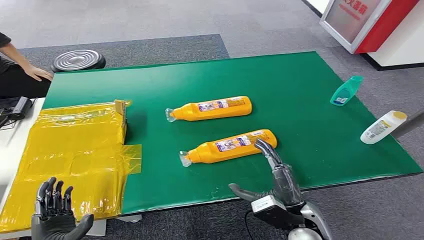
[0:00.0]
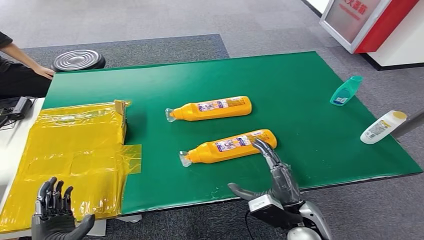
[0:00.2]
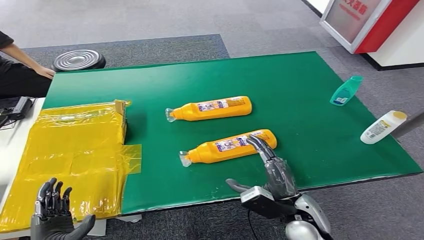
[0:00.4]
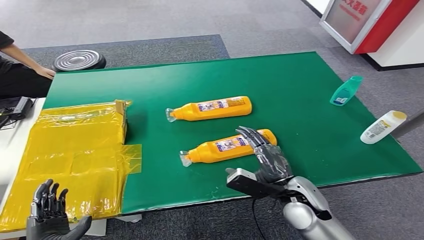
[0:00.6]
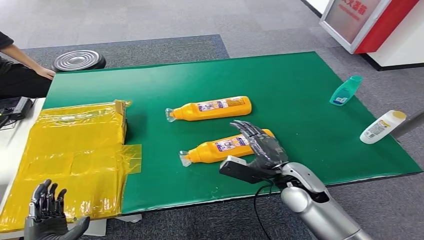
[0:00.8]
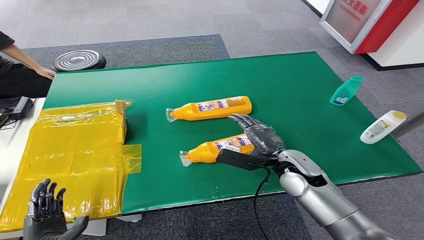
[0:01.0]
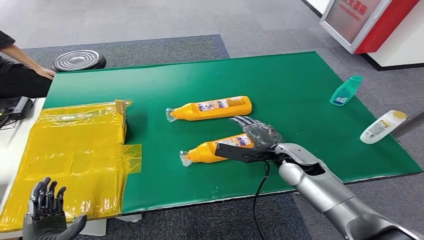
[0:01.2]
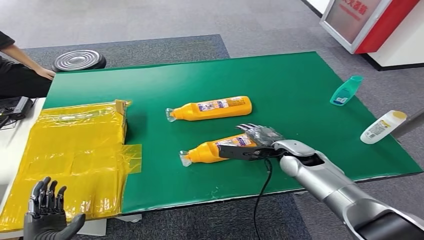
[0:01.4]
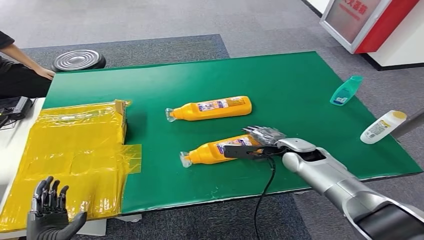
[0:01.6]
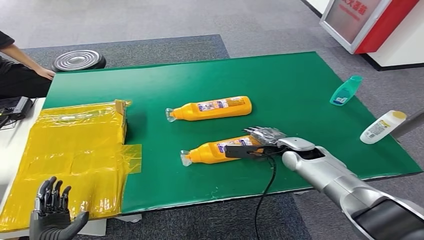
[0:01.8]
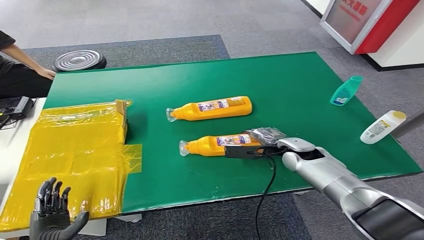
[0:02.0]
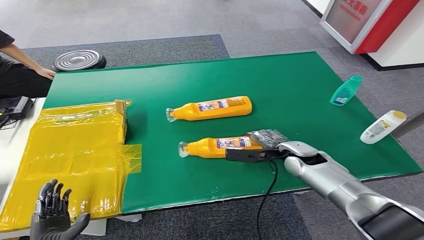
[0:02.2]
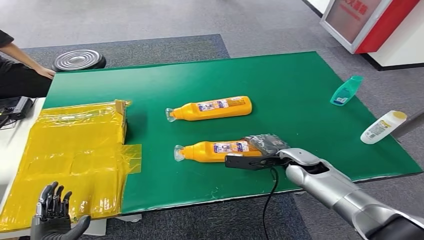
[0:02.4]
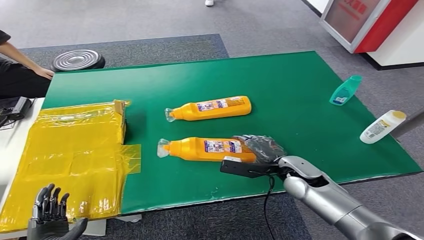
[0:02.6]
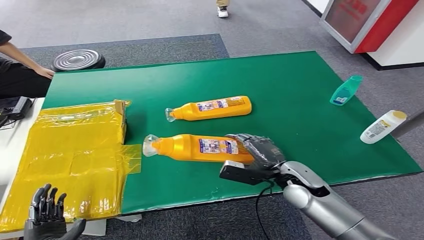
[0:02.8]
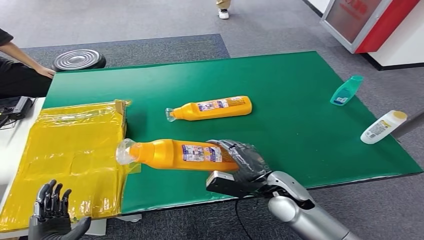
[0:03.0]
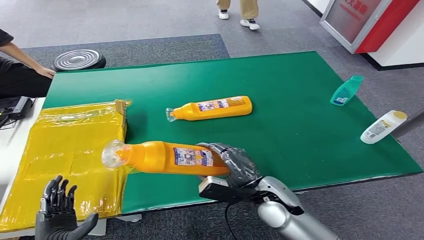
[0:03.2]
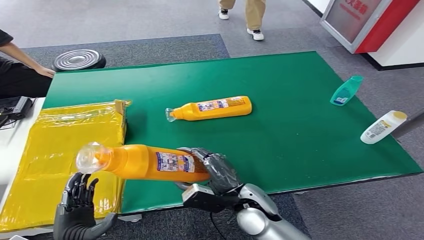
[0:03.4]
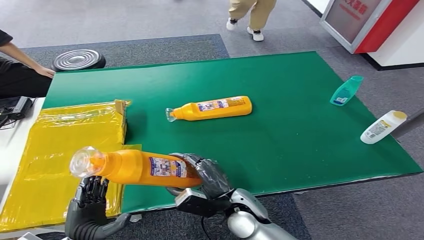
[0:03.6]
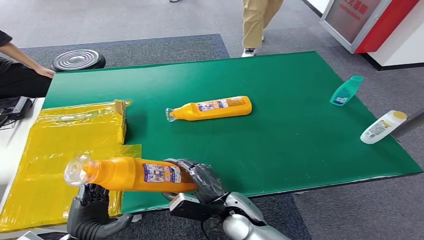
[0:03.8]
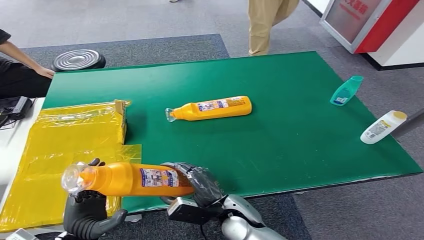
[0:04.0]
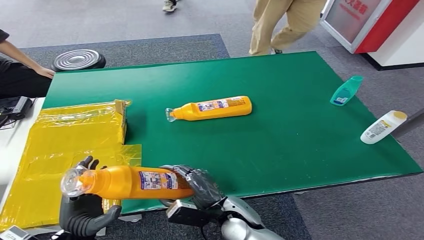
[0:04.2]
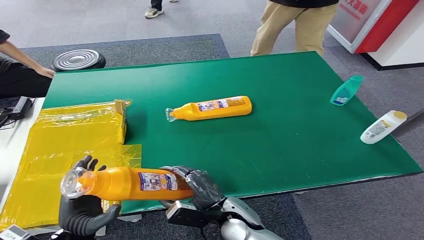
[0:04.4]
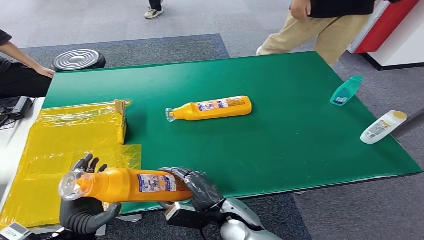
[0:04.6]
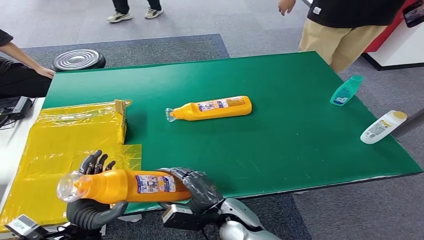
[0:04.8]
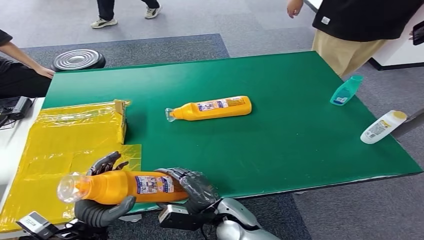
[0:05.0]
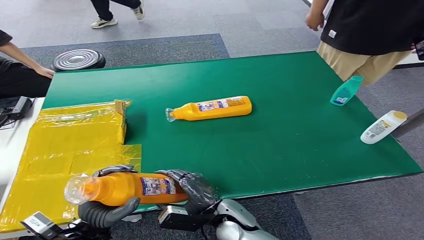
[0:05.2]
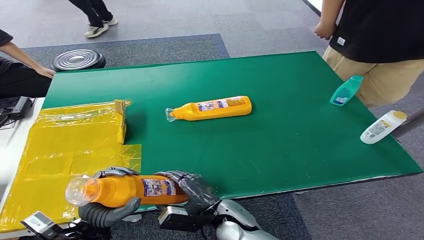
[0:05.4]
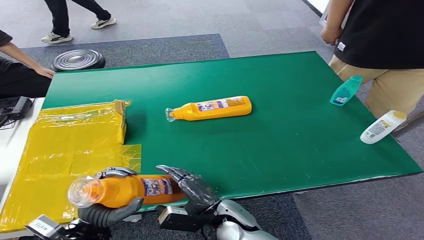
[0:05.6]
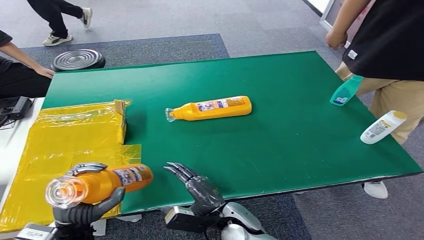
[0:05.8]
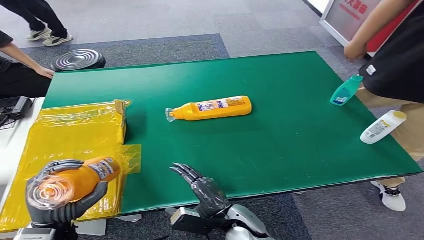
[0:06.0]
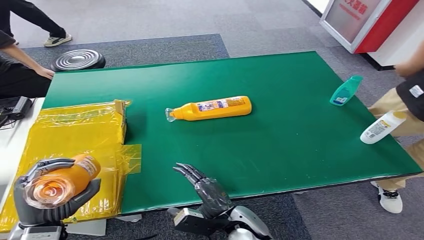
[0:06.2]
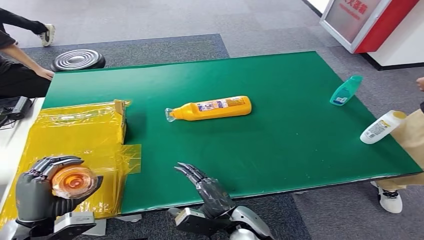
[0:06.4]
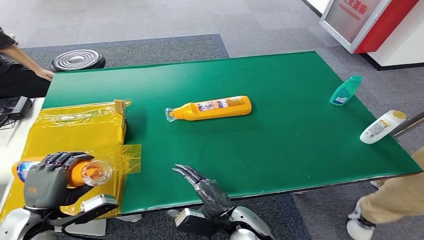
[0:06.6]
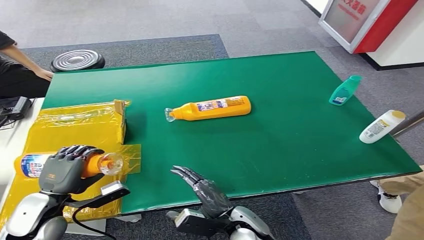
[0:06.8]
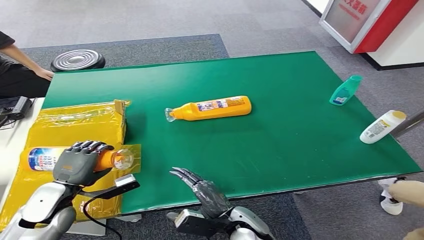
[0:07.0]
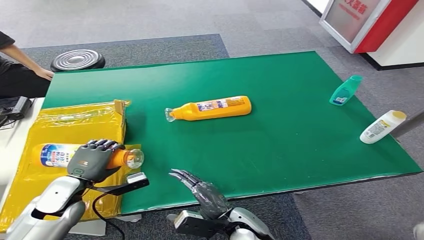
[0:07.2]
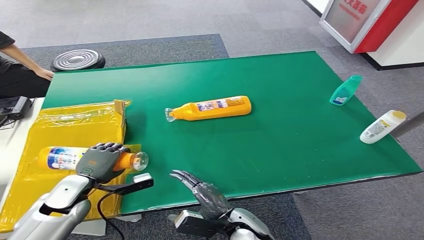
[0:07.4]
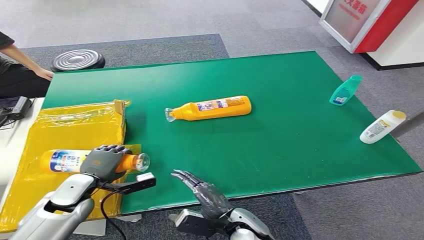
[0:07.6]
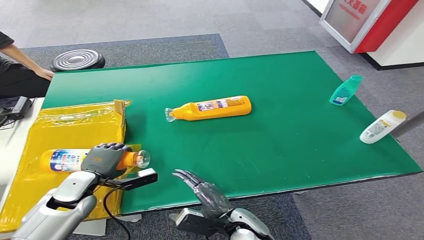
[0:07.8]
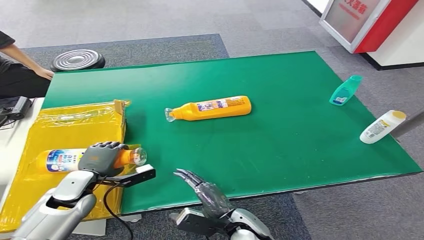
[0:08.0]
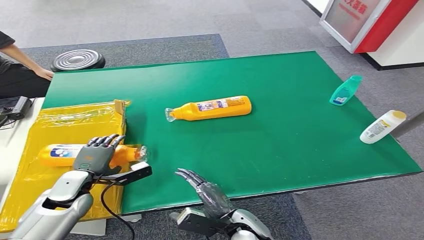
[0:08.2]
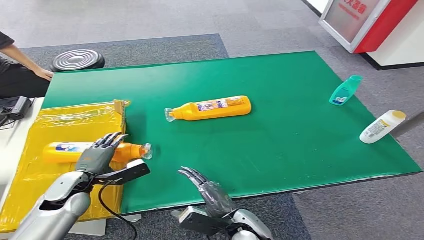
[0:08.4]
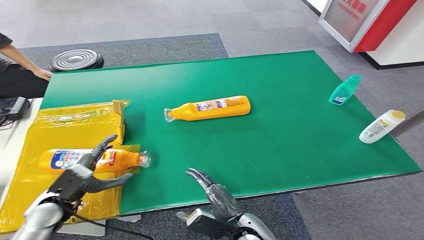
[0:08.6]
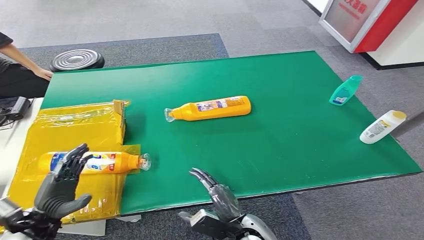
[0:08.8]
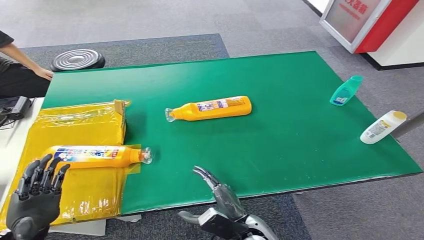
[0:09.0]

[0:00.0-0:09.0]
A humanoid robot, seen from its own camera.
Step, 0:00.0 to 0:03.4: Pick up the bottle from the table.
Step, 0:03.8 to 0:09.0: Turn the bottle to the front side.
0:01.6 to 0:03.0: The right hand shifts some 15 cm backward and to the left.
0:07.6 to 0:09.0: The left hand is displaced backward by approximately 15 cm.
